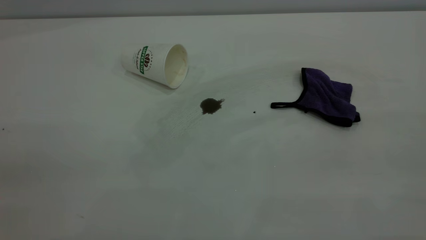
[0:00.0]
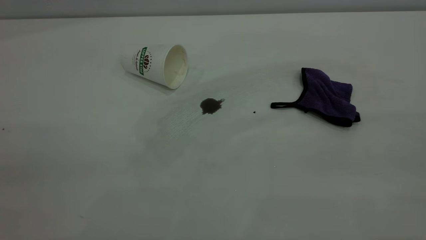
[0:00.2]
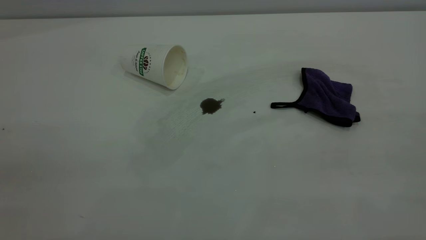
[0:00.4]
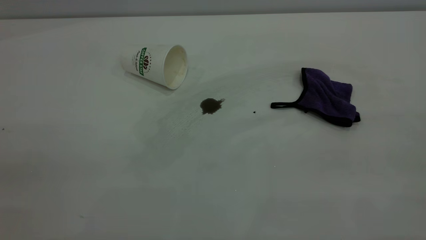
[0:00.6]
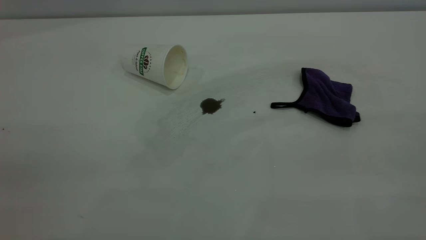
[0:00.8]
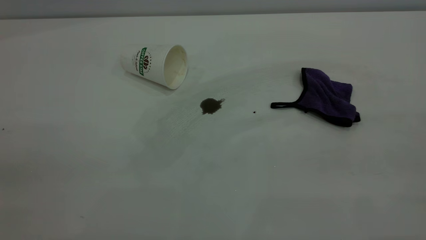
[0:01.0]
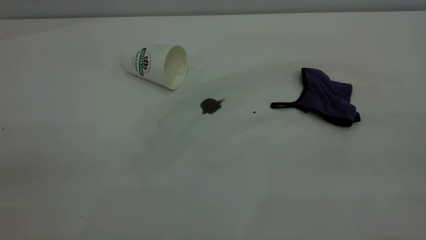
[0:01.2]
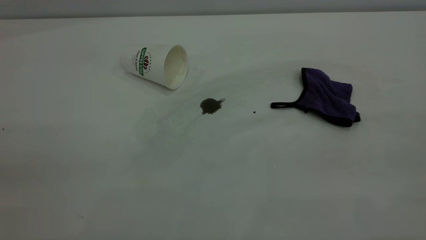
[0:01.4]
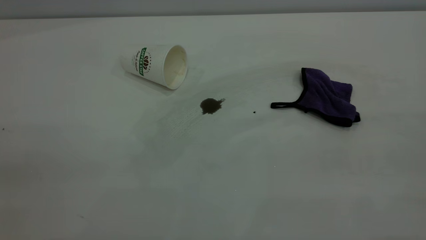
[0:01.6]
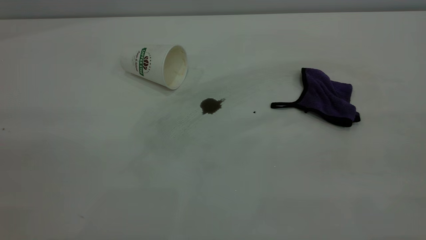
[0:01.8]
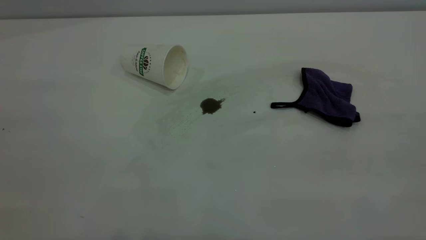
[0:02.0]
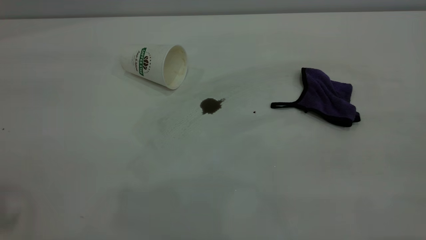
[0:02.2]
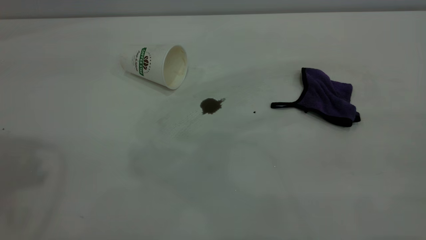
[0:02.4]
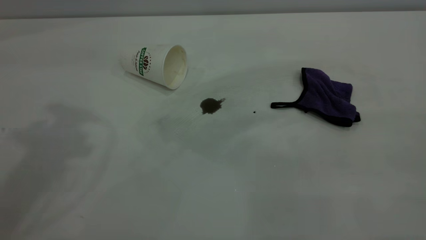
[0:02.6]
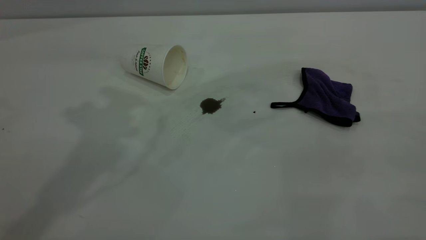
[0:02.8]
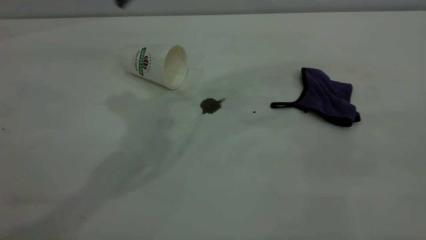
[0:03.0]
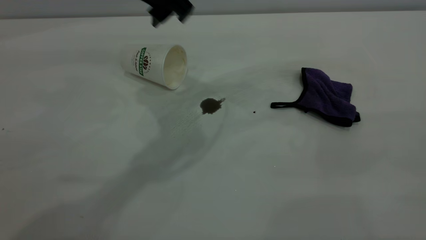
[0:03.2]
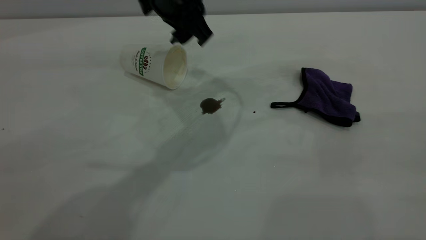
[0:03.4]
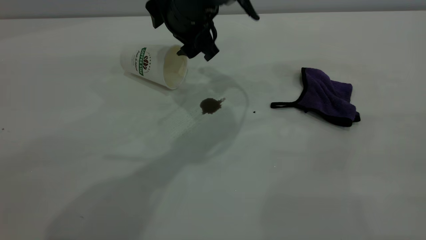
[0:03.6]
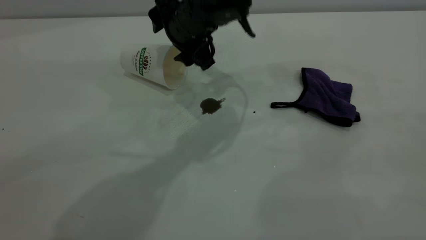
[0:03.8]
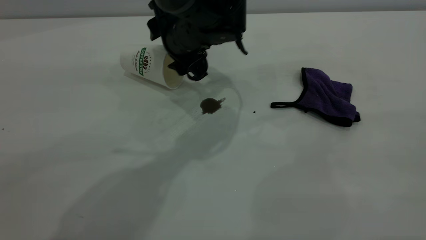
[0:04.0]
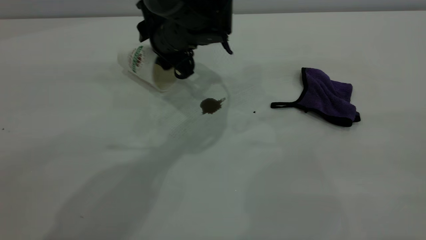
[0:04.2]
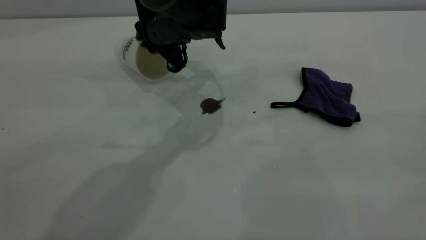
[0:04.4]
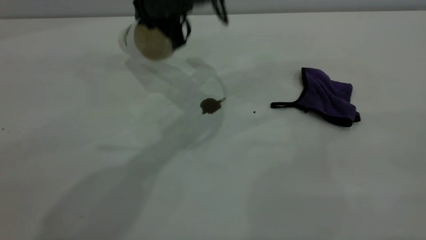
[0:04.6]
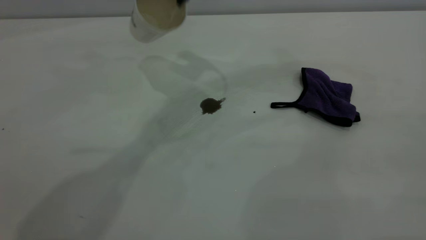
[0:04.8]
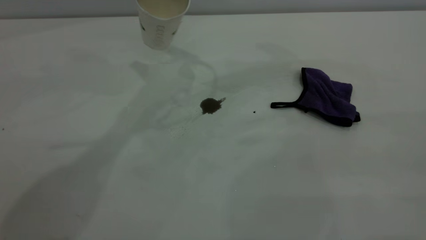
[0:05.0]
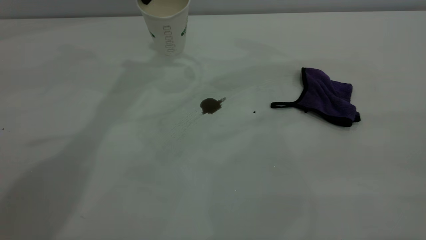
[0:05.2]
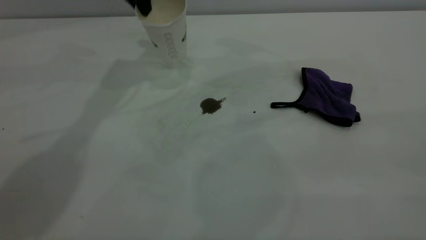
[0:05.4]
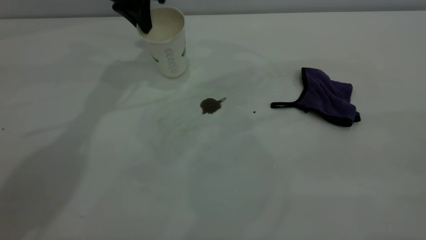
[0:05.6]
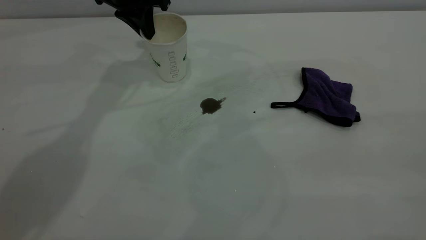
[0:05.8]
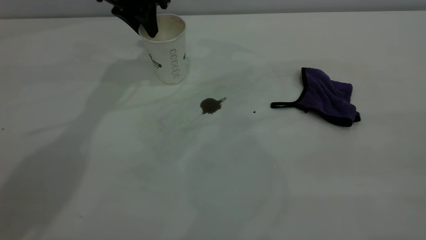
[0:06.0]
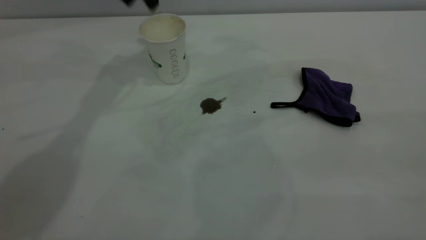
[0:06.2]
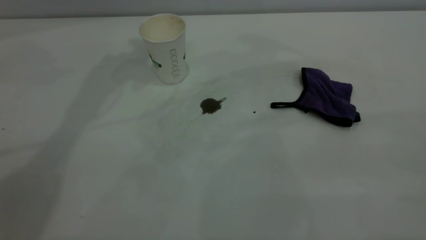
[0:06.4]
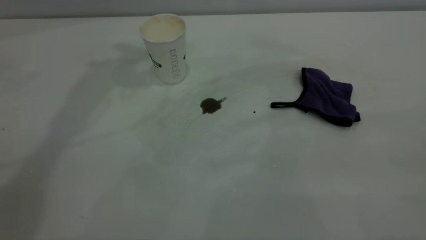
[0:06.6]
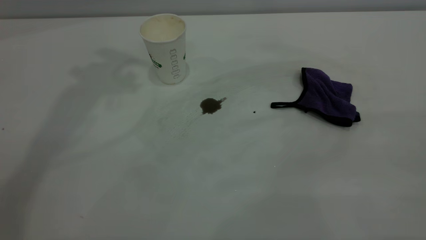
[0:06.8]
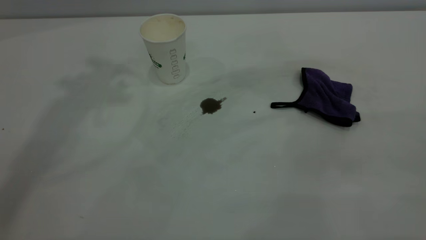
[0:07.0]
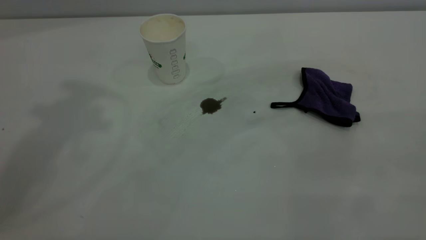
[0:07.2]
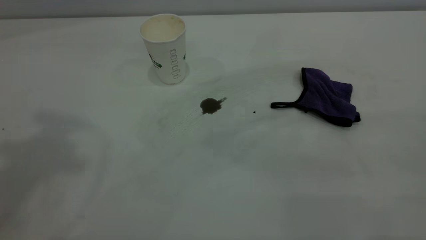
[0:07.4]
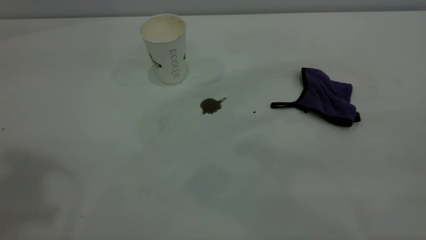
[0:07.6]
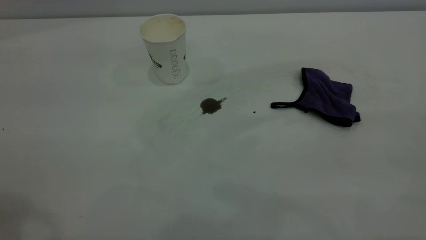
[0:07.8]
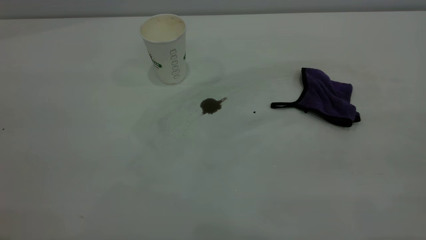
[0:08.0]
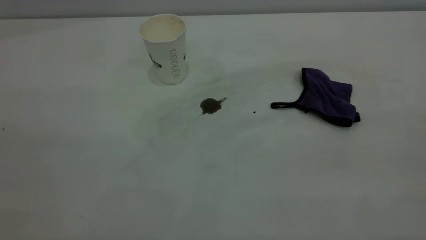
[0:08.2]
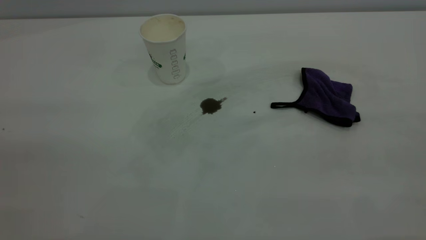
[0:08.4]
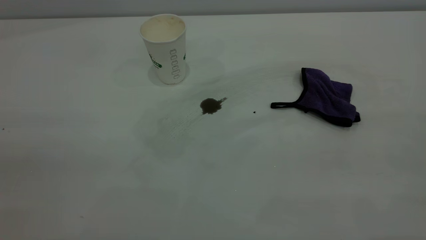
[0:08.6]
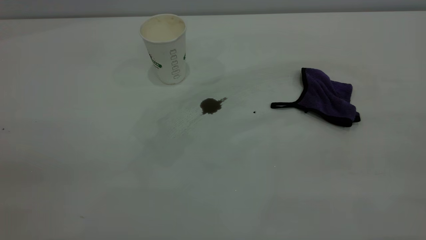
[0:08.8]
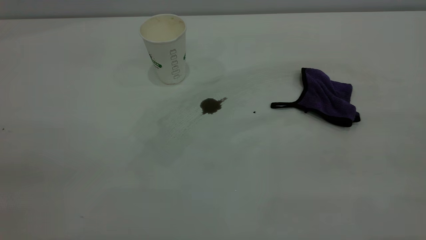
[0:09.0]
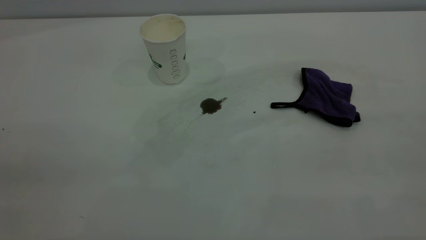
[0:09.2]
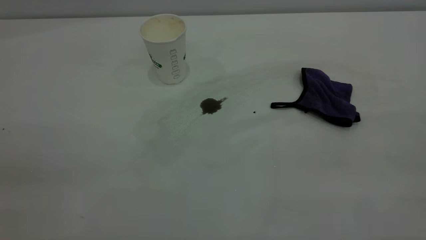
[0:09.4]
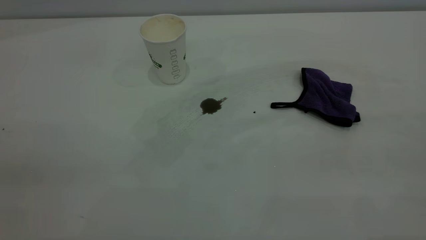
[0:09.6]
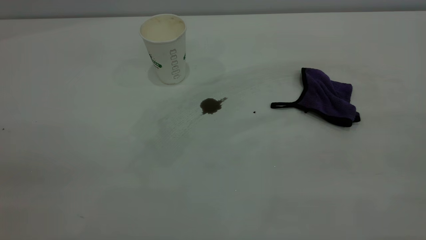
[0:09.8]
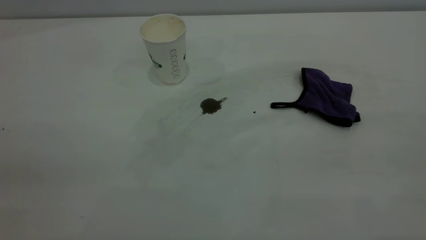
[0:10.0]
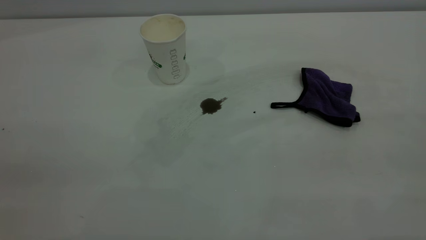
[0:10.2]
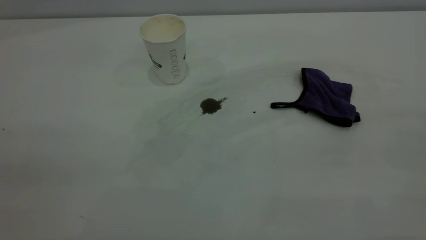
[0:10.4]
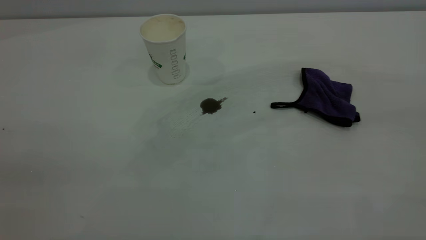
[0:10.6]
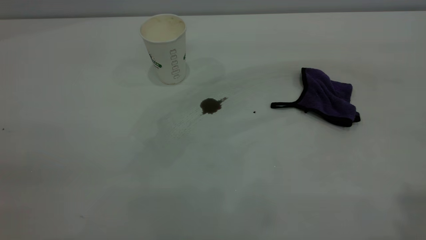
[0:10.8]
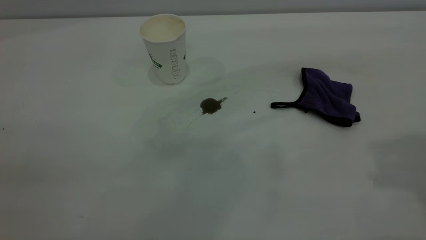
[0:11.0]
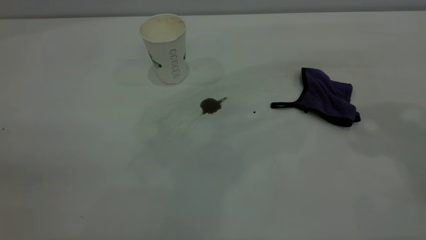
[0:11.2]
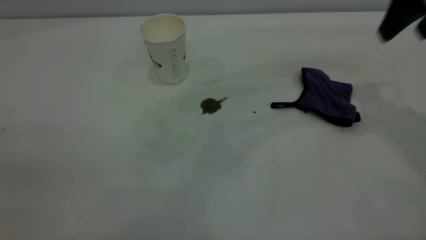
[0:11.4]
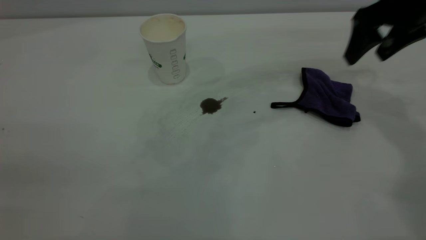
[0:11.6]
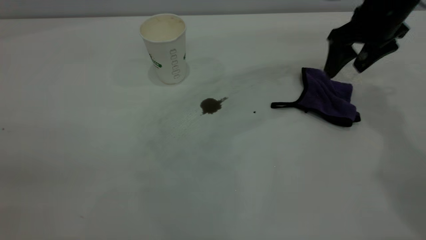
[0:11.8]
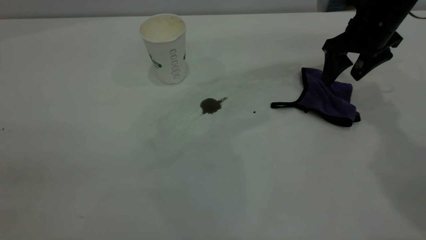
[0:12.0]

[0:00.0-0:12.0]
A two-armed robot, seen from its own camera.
Task of the whole recording: the left gripper pick up the fallen cup and place it upright, the right gripper grasp the purple rag and wipe the coffee stain on the table, the right gripper put the purple rag back in its original position.
Step, 0:00.0 to 0:06.0: Stand the paper cup upright.
0:00.0 to 0:01.6: Both grippers stay about where they are.
0:03.0 to 0:04.4: The left gripper travels downward and forward by about 15 cm, and closes.
0:04.4 to 0:06.0: The left gripper goes roughly 15 cm to the left, upward and forward, and opens its fingers.
0:06.0 to 0:07.6: The left gripper heads backward and upward, covering roughly 40 cm, and opens, then closes again.
0:10.4 to 0:12.0: The right gripper shifts about 50 cm forward and downward, and opens.

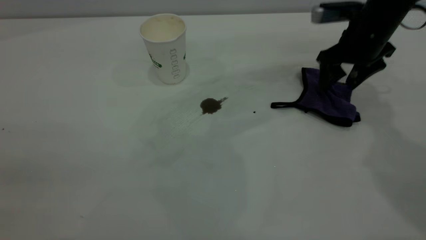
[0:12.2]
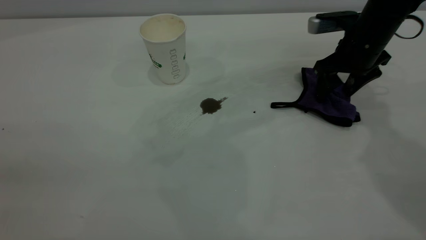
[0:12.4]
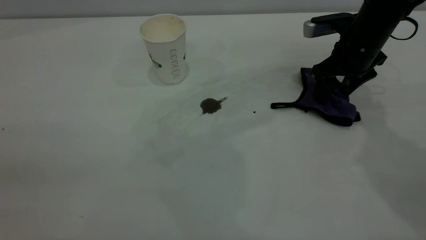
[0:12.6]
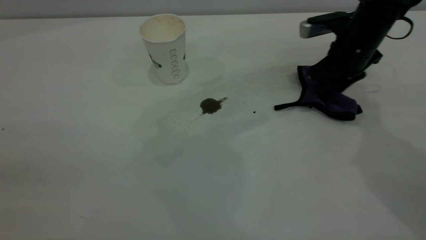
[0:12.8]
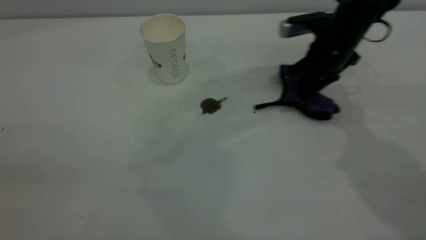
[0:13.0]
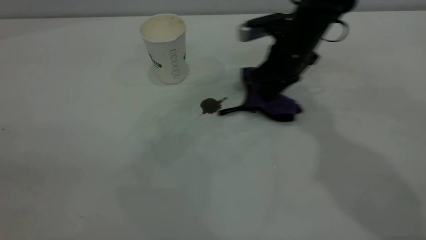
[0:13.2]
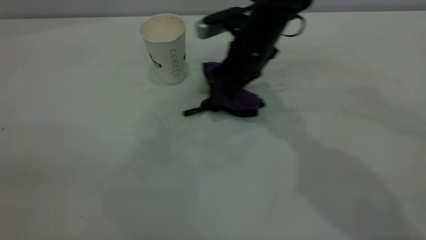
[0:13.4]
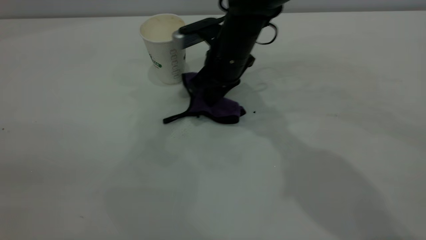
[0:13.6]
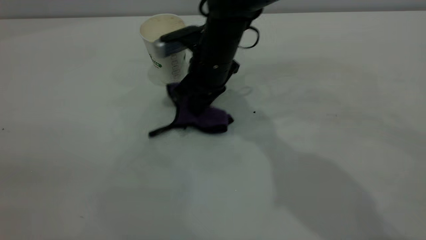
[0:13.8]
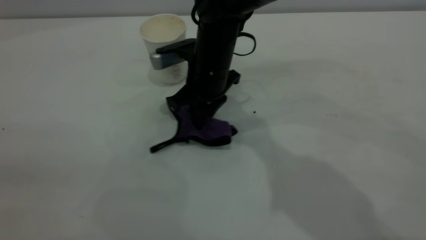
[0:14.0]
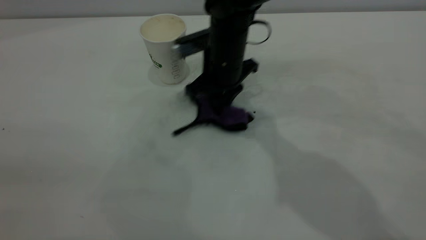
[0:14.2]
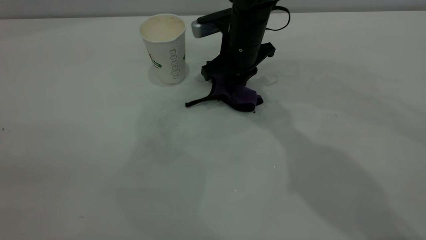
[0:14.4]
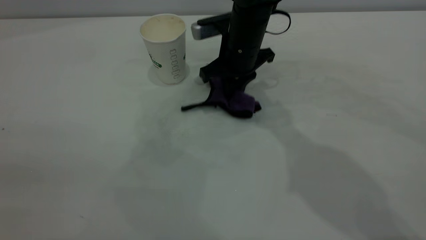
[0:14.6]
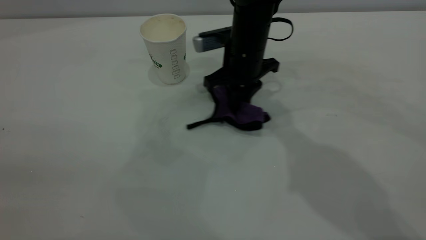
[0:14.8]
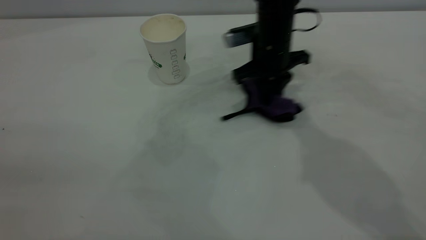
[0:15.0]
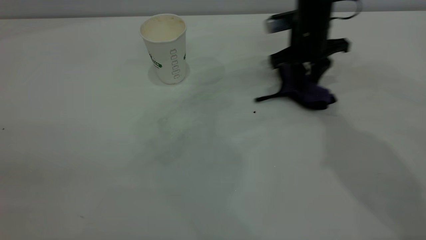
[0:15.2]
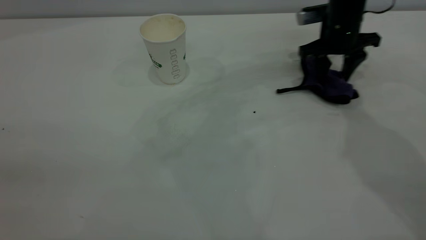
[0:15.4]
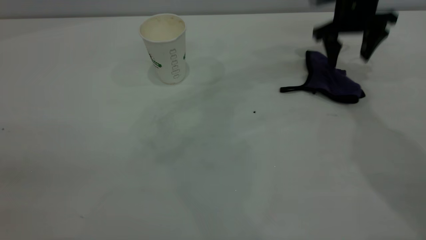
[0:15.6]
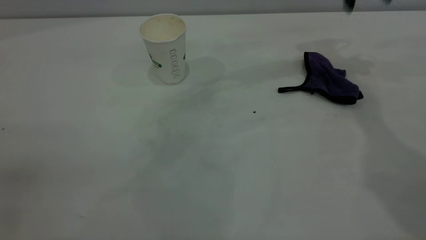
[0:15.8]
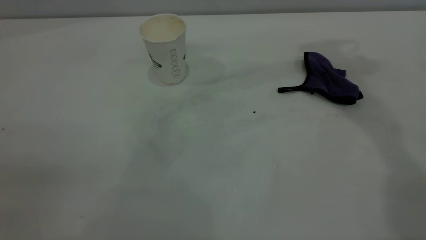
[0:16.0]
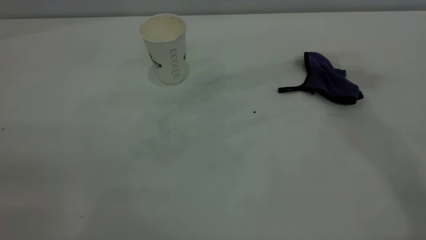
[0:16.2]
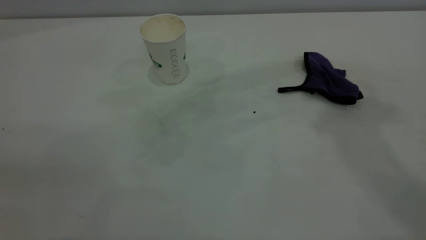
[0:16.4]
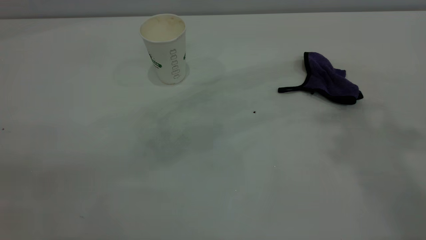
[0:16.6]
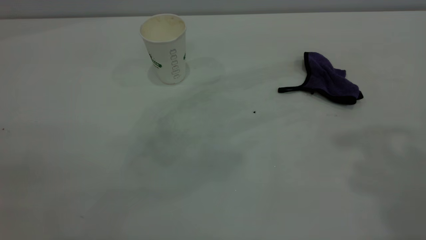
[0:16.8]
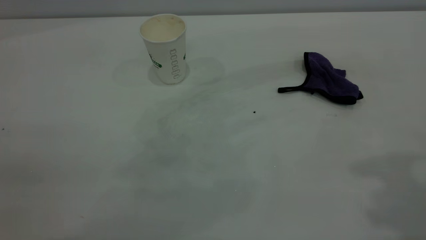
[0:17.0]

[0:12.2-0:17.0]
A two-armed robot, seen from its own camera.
Task of the whole recording: the left gripper pick up the fallen cup and place it upright, the right gripper grasp the purple rag and wipe the coffee stain on the table, the right gripper put the purple rag back in its original position.
Step, 0:12.2 to 0:15.6: Wipe the stains off the table with a rag.
0:12.2 to 0:13.8: The right gripper goes some 25 cm to the left, and closes.
0:13.8 to 0:15.4: The right gripper travels to the right by roughly 25 cm, and opens.
0:15.4 to 0:17.0: The right gripper travels upward and backward by roughly 50 cm.
